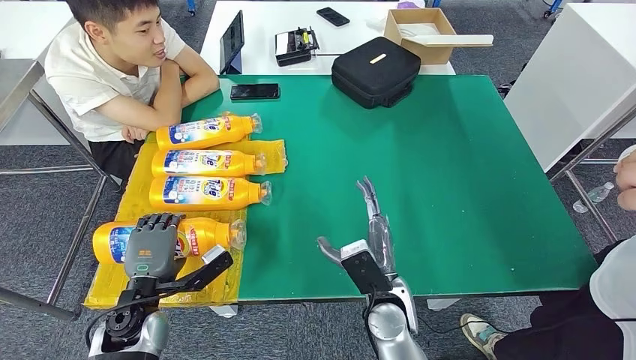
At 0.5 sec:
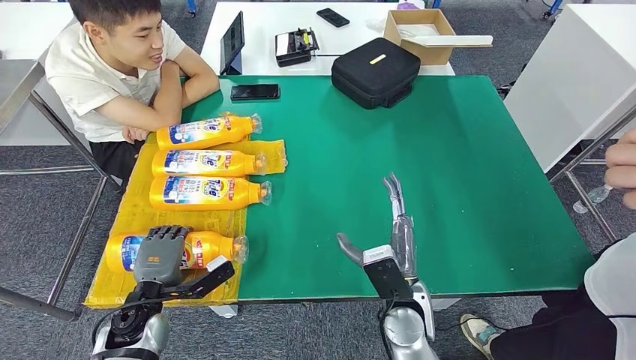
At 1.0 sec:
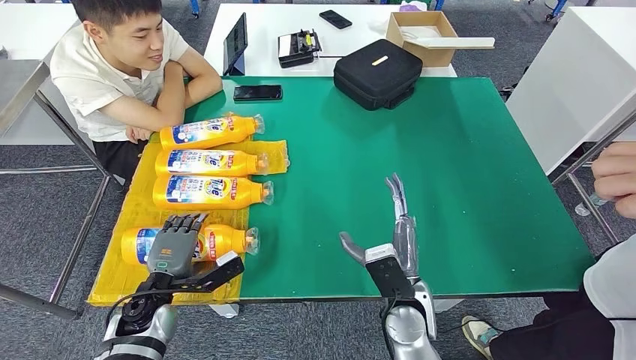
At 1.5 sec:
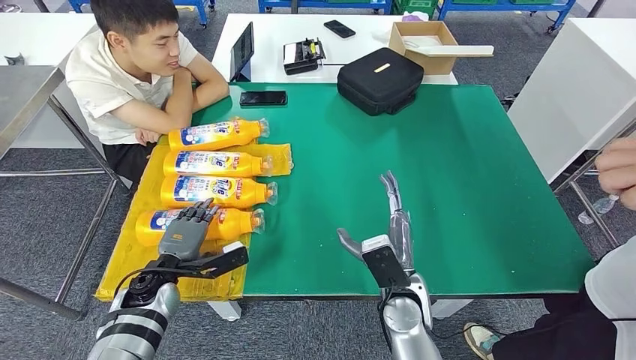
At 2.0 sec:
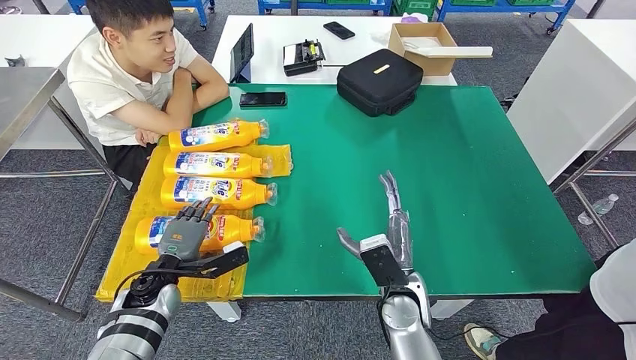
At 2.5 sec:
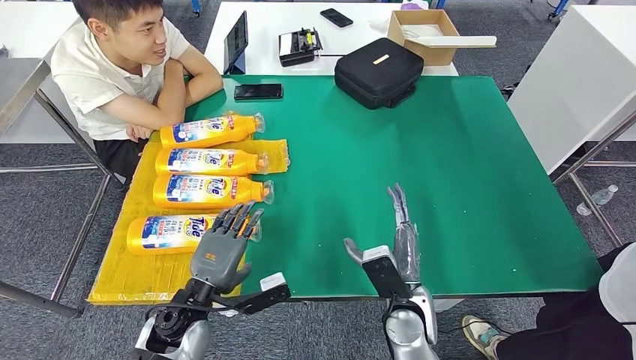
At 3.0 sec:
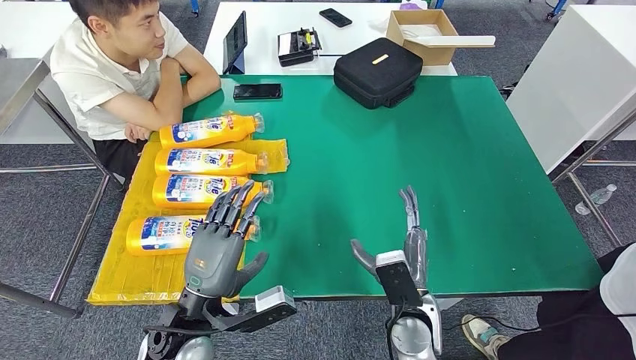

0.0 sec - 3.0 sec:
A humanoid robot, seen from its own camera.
Step, 0.0 sec - 3.0 sec: Flip the bottle to face forward.
